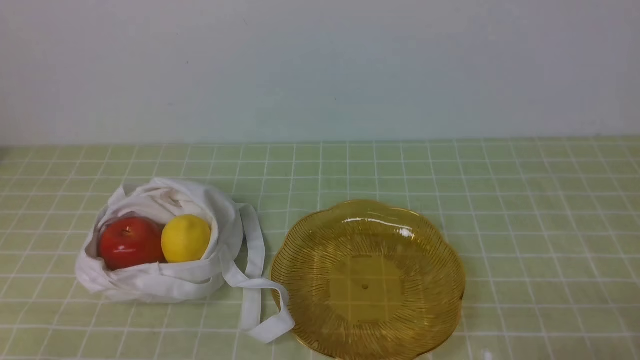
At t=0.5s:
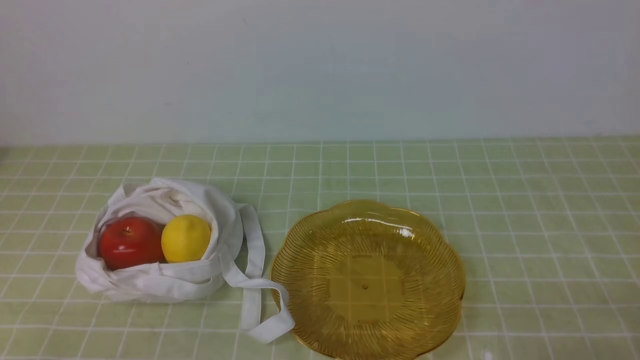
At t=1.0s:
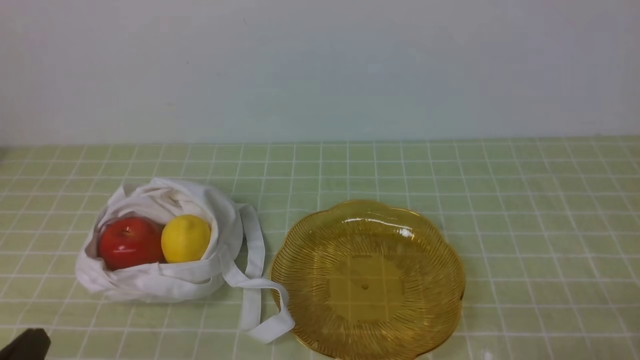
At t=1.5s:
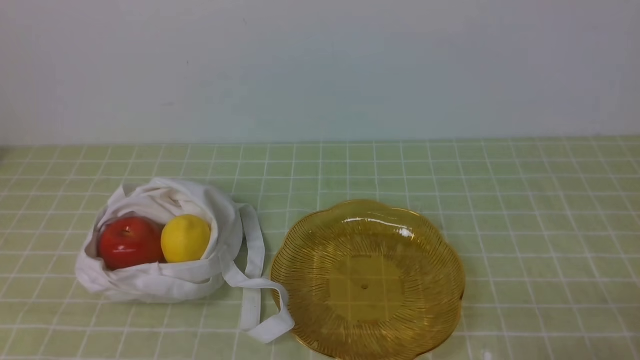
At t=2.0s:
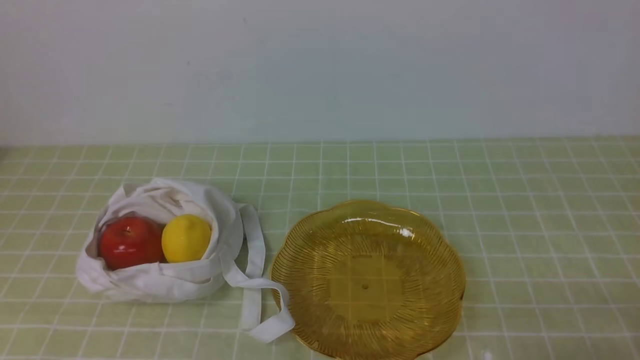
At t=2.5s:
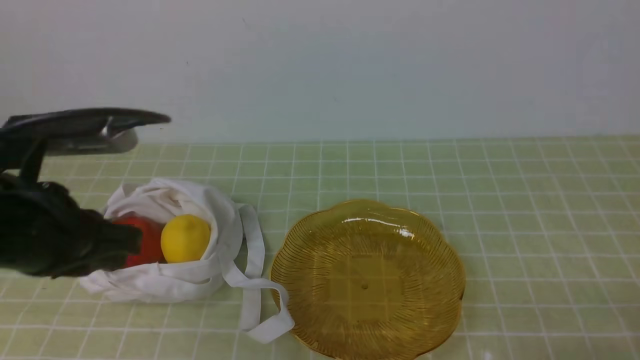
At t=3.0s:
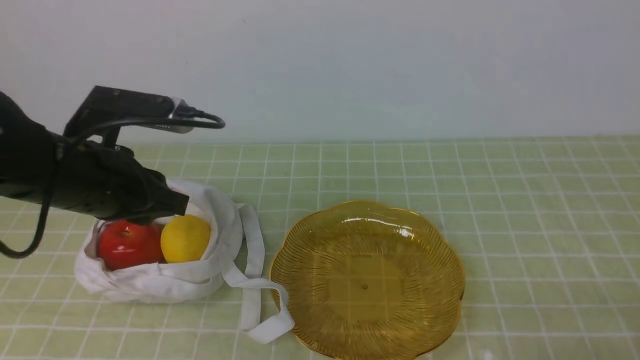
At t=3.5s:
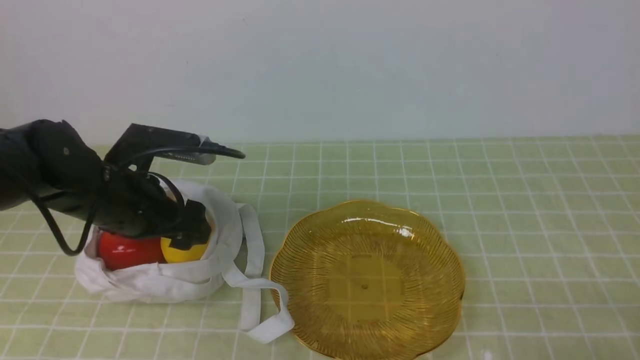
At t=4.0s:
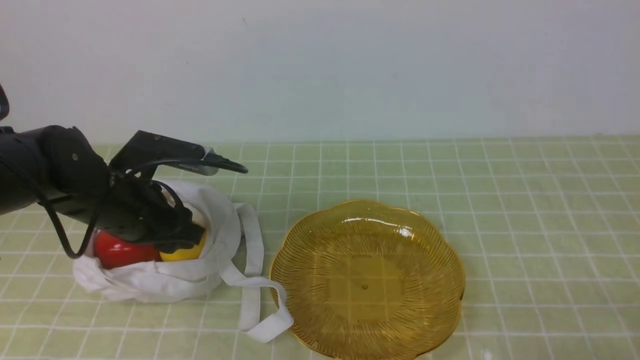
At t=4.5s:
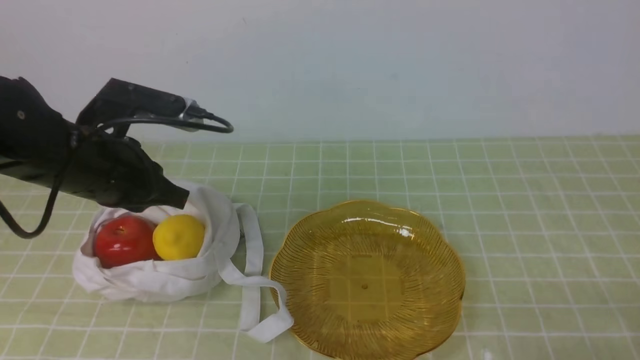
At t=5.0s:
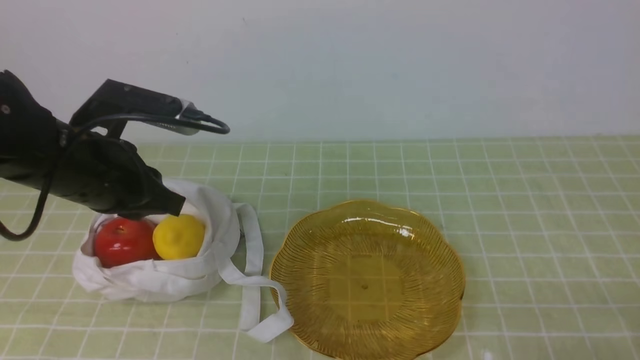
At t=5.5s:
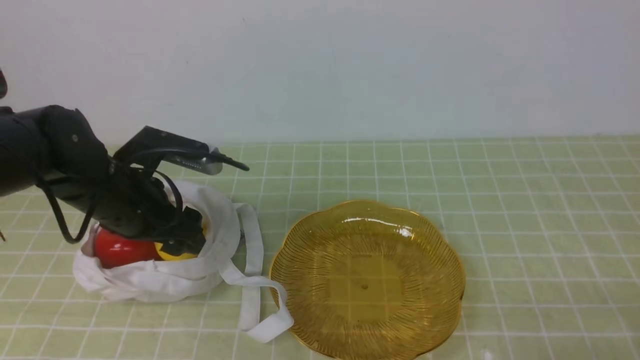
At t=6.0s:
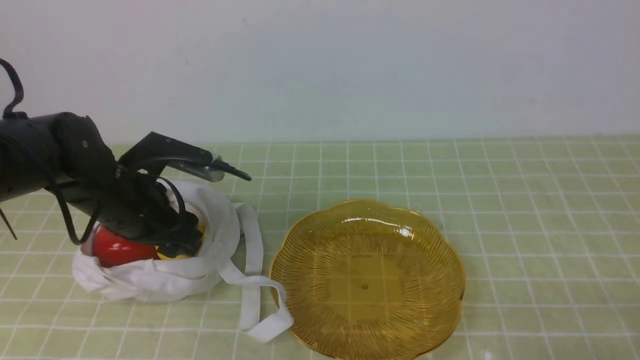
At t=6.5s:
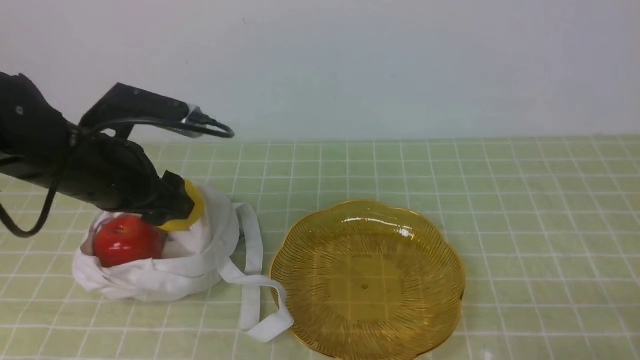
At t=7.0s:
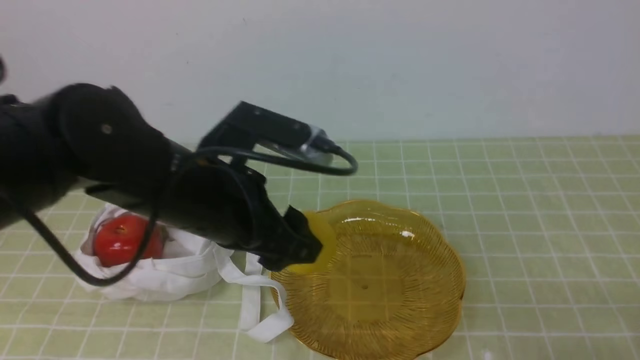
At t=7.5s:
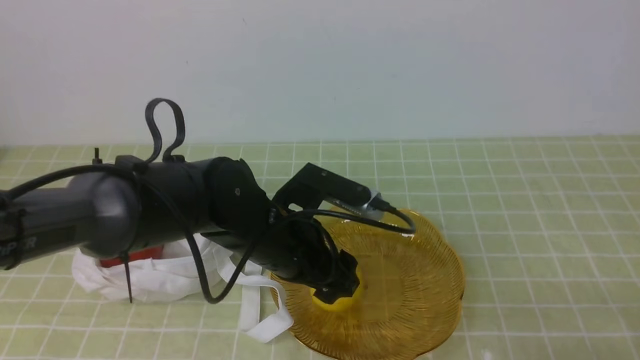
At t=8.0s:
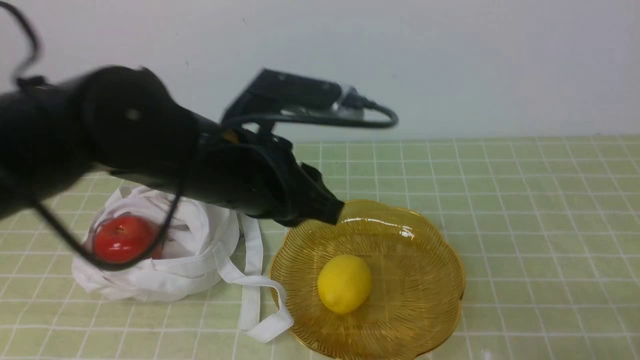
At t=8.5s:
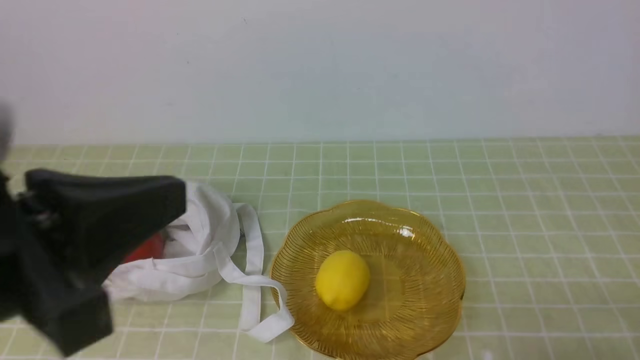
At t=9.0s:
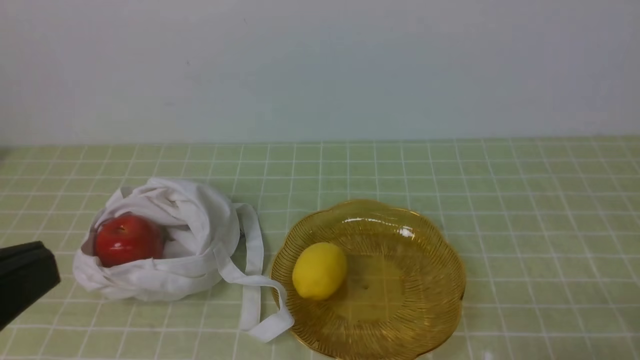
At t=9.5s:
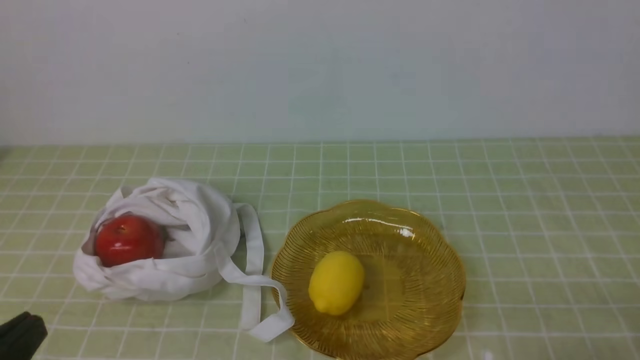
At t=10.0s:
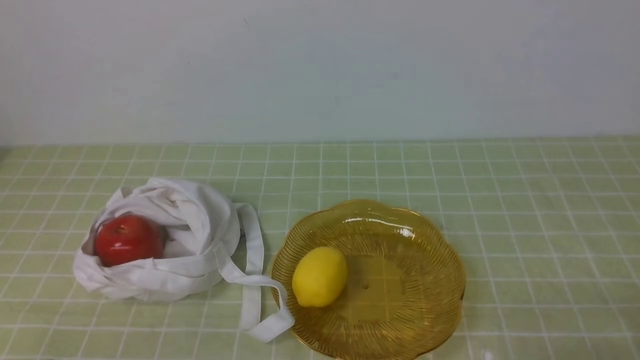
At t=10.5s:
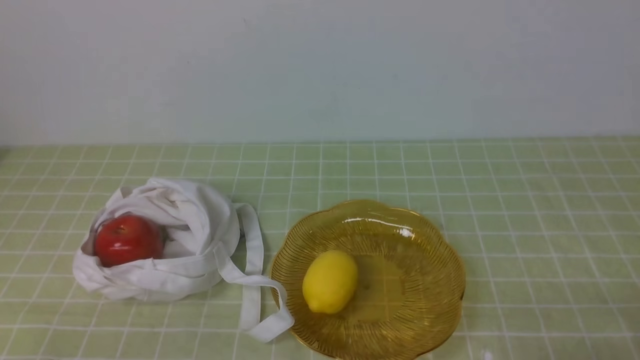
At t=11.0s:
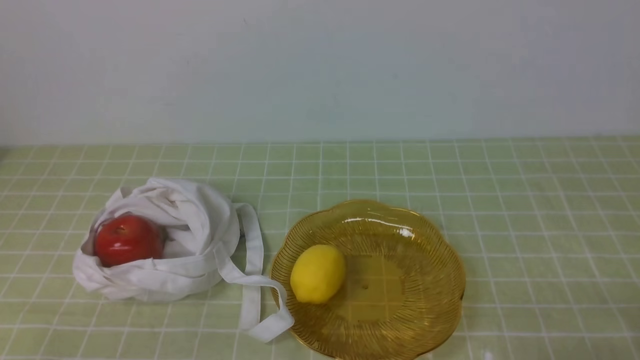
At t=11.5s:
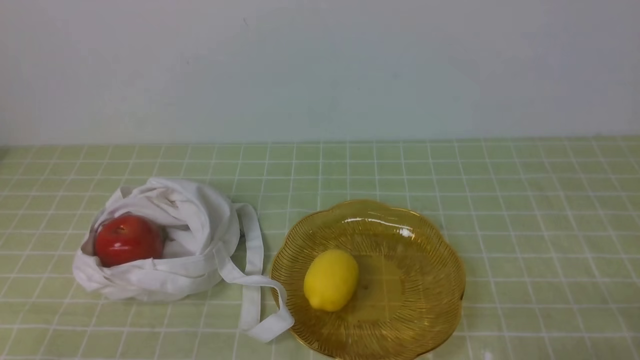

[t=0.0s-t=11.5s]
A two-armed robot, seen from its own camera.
Step, t=0.0s to t=6.0s: use the left arm to grab a lemon from the bag.
Step, t=6.5s to t=7.5s: use the left arm to put the lemon into the empty plate on the right.
t=2.0s to t=4.0s: The left gripper shifts approximately 30 cm forward and downward, and opens up.
t=4.0s to t=6.0s: The left gripper closes, then reopens.
t=6.0s to t=7.5s: The left gripper moves to the right, about 15 cm.
t=7.5s to t=9.5s: The left gripper goes some 30 cm backward and to the left, and closes.
t=9.5s to t=11.5s: The left gripper moves downward, about 10 cm.
